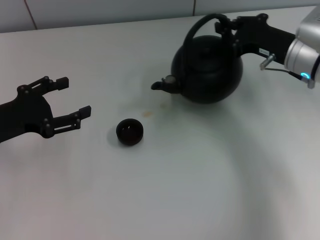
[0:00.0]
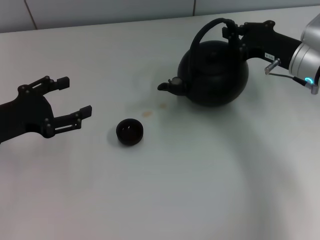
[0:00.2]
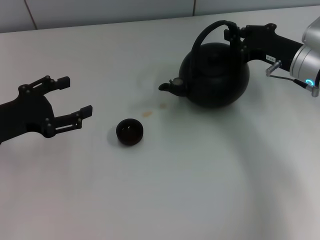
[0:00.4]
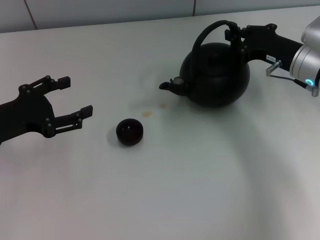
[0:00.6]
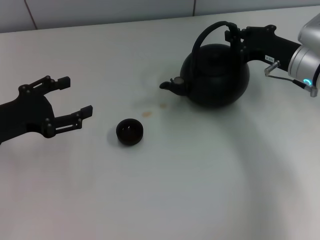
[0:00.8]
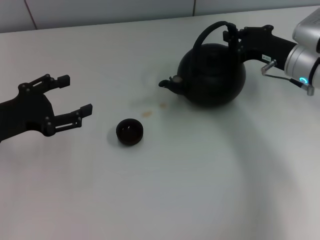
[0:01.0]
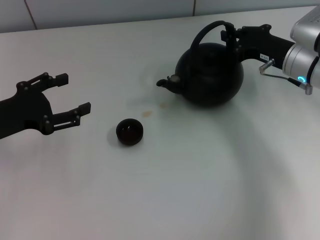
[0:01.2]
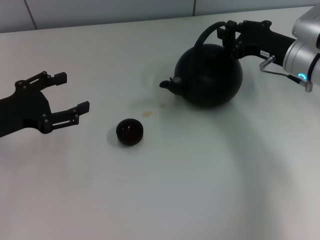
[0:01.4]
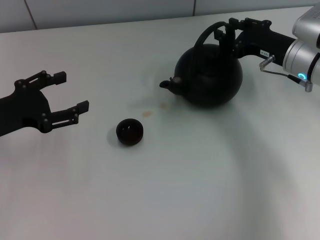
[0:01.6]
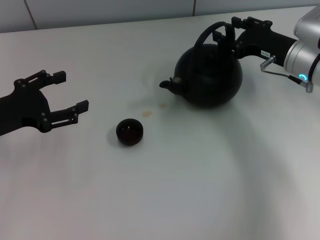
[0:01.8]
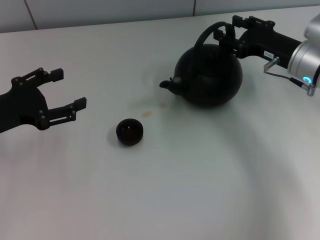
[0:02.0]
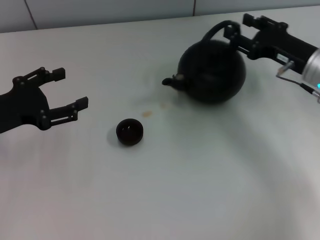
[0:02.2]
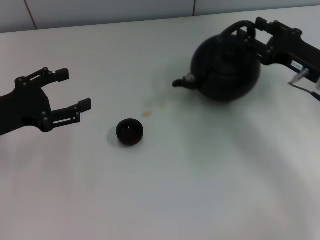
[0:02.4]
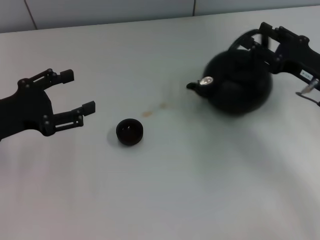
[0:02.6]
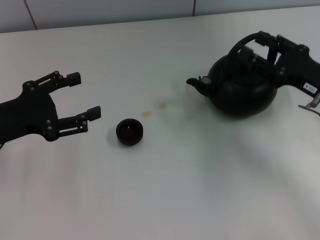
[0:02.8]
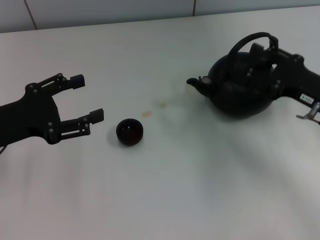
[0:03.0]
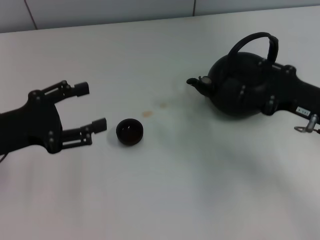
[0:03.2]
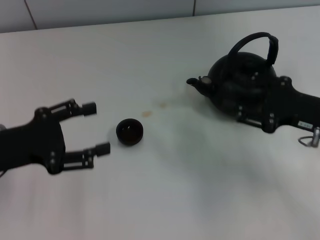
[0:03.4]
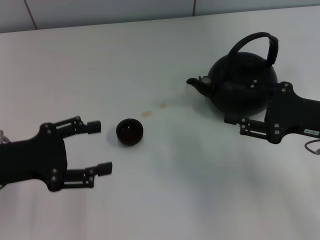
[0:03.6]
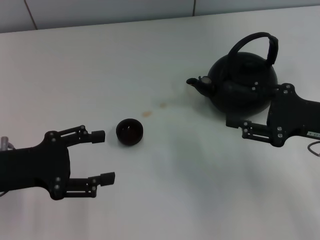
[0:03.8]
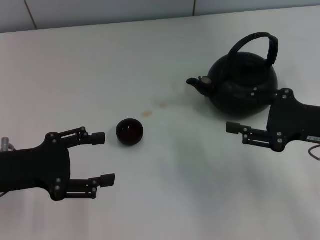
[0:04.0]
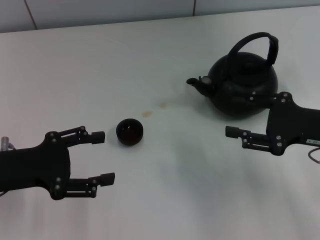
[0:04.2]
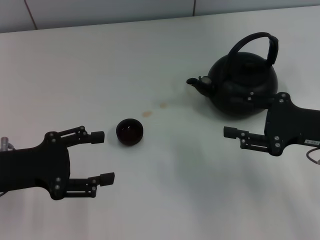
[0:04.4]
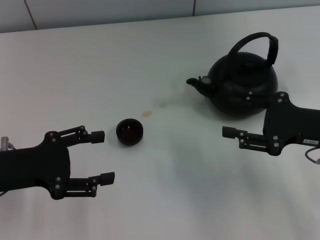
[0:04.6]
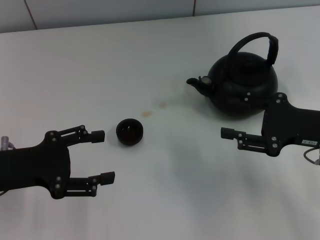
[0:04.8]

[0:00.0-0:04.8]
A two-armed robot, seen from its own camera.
Task of the whole recording: Grasp the handle of the teapot with one hand and pour tea into the teacup.
Step, 0.0 to 3.4 s: Put down the teapot with the right gripper.
0.0 to 1.6 s: The right gripper opens.
1.6 to 3.2 s: The right gripper travels backward by approximately 10 cm.
3.2 to 4.8 s: There are only small adjustments of the grippers.

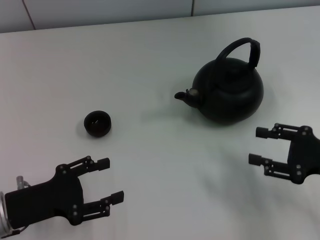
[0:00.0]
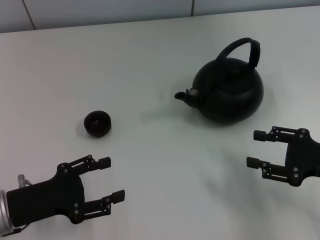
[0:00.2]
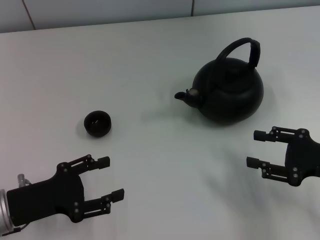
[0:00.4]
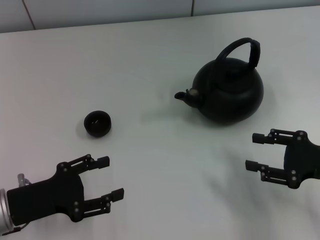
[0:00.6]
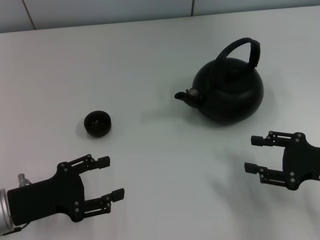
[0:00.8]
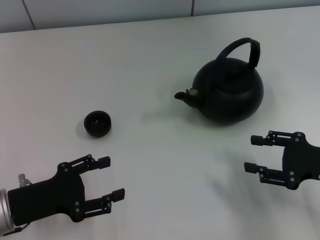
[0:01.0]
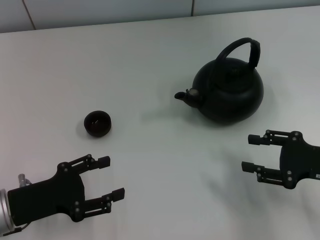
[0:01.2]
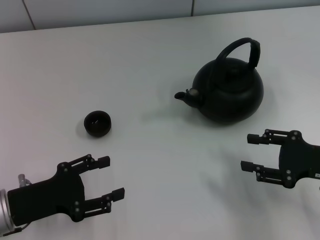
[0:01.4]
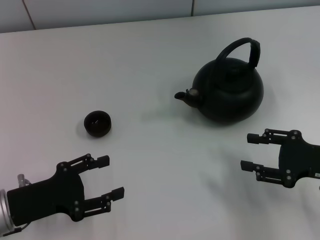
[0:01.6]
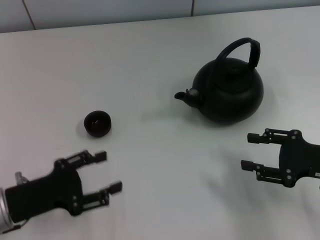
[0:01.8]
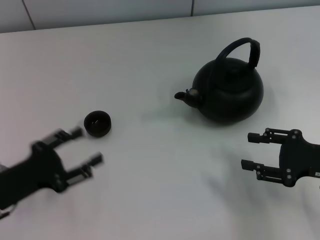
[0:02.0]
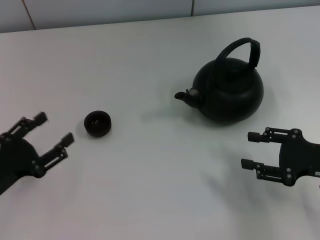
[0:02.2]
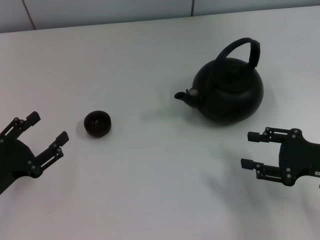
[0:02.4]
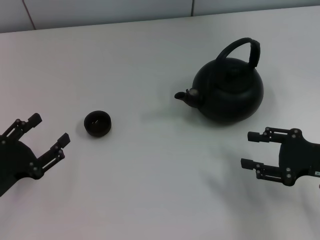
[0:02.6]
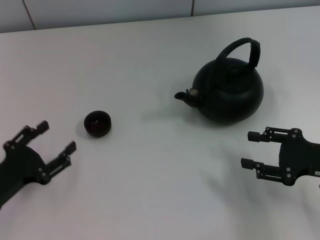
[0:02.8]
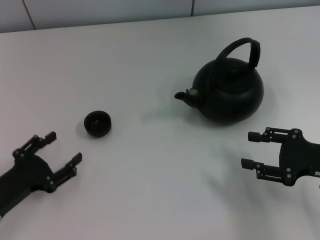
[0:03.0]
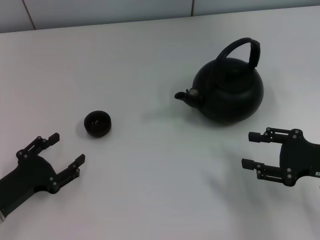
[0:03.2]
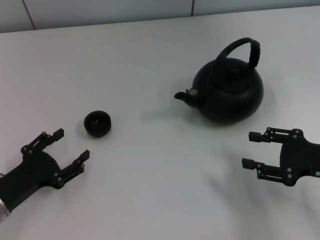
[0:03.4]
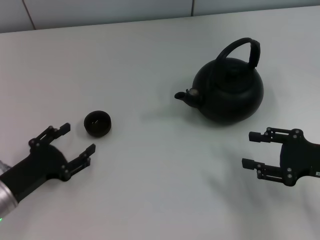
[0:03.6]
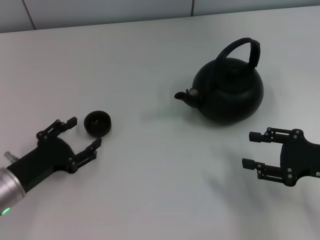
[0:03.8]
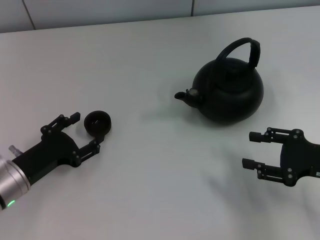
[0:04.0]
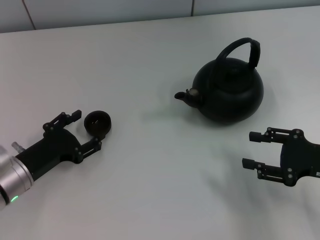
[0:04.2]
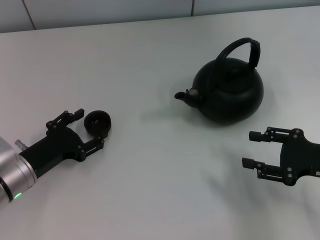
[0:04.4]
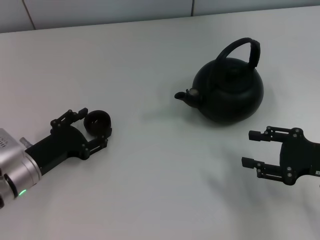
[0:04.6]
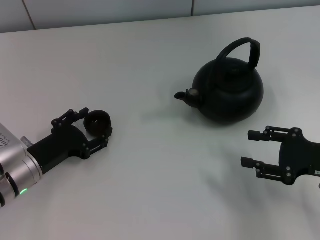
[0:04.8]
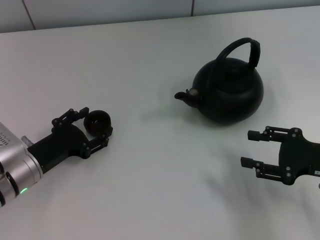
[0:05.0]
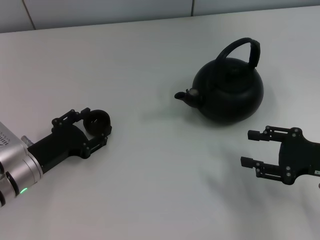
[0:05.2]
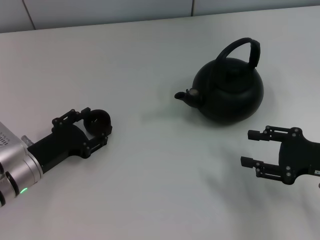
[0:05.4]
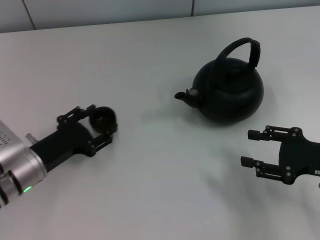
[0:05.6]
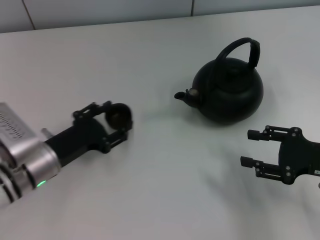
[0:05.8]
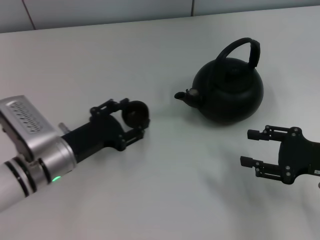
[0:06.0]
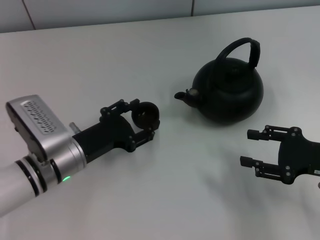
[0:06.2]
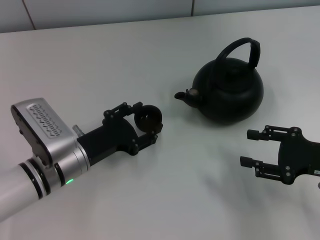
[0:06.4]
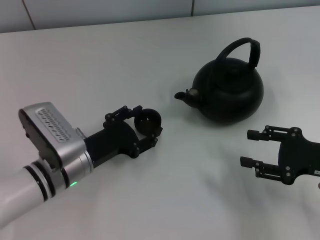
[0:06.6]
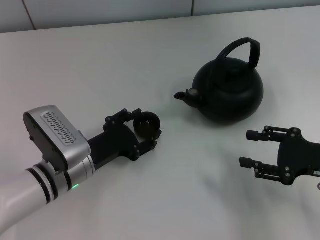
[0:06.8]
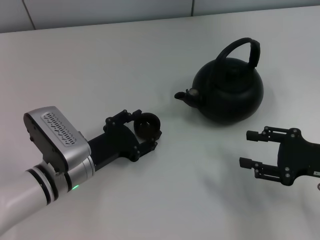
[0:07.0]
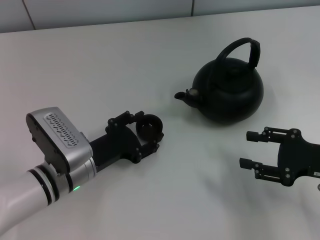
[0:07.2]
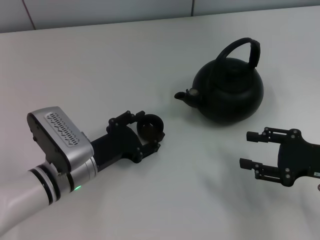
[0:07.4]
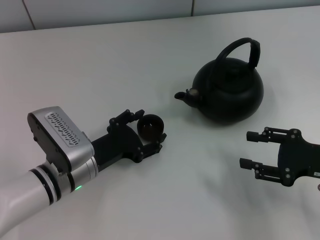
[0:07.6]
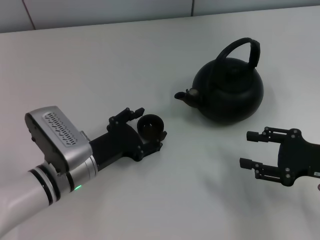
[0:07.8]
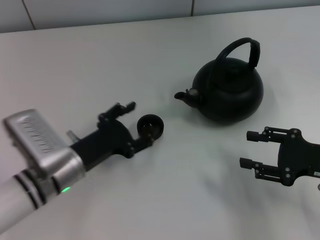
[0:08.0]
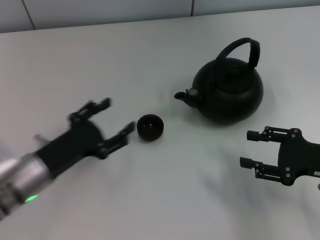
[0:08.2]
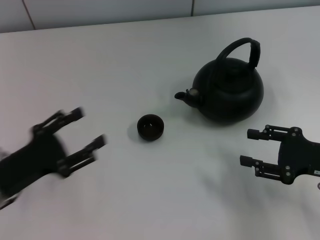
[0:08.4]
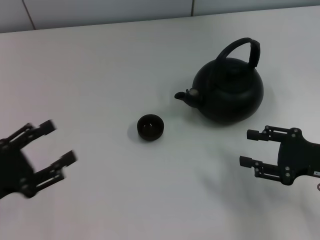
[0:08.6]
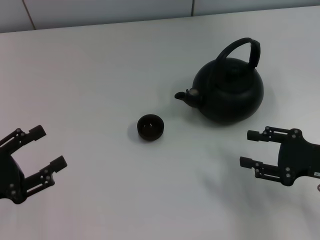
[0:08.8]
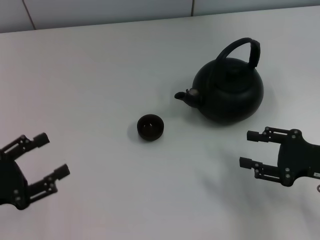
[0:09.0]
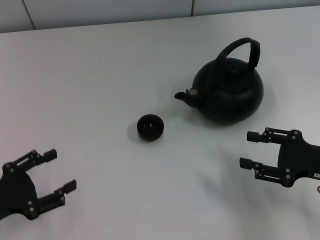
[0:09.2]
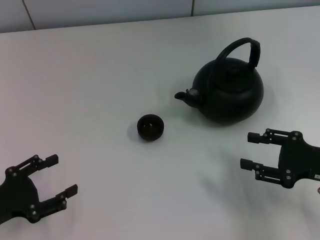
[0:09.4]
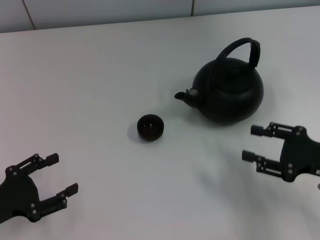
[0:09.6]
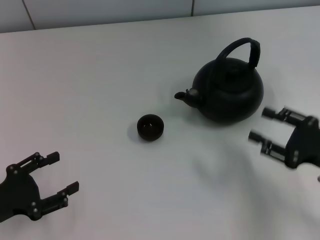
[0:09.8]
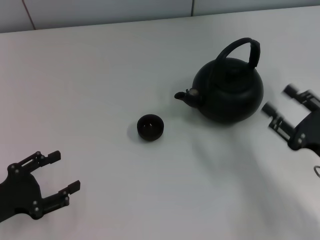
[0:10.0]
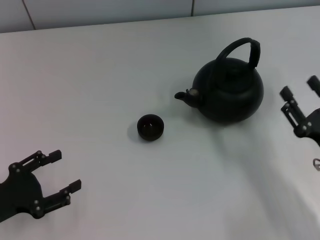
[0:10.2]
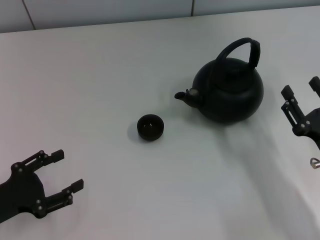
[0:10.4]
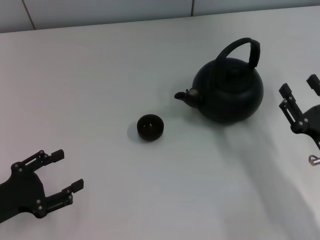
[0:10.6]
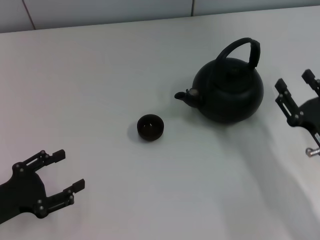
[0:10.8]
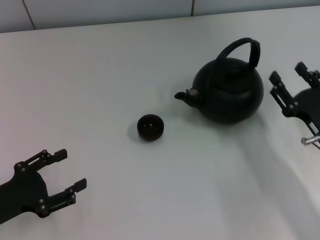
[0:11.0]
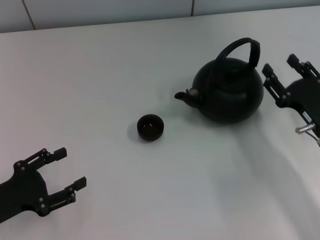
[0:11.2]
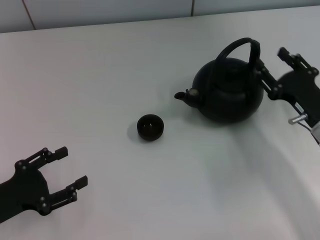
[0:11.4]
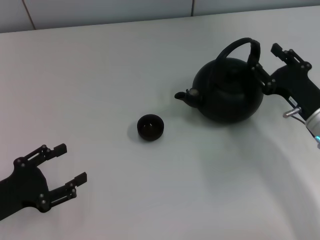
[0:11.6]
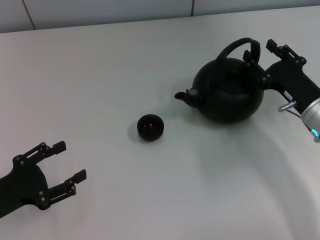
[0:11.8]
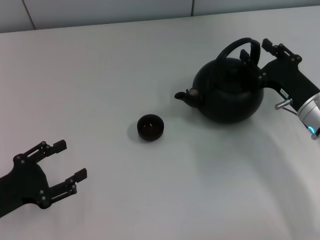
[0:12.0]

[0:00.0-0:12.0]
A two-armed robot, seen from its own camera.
Task of the whole recording: Grasp the handle of the teapot with one hand and pour tea into the teacup.
Step, 0.0 to 5.6 s: Pick up the teacup with the left gripper.
Step, 5.8 to 8.0 s: Place the teacup in the center of view with the left gripper.
0.0 to 1.6 s: The two grippers keep their place.
3.0 to 4.4 s: The left gripper shifts approximately 5 cm forward.
4.4 to 6.0 s: The left gripper goes approximately 5 cm to the right.
6.0 to 7.6 s: The grippers stay close to where they were, moving slightly.
7.6 to 9.0 s: The left gripper is displaced to the left and backward by roughly 20 cm.
9.0 to 10.4 s: The right gripper changes place by roughly 5 cm.
10.4 to 12.0 s: The right gripper moves forward, approximately 10 cm.

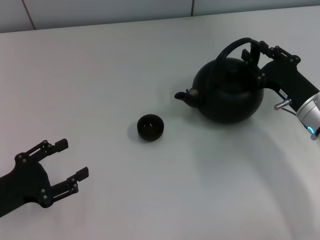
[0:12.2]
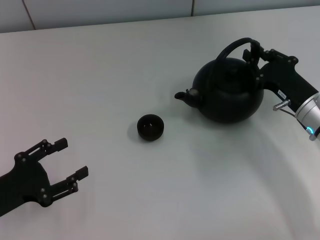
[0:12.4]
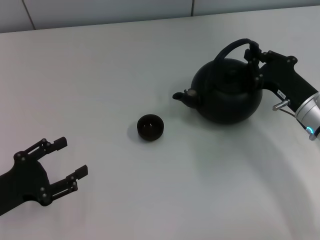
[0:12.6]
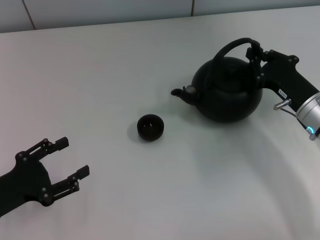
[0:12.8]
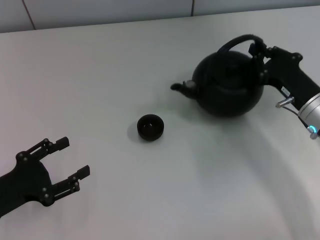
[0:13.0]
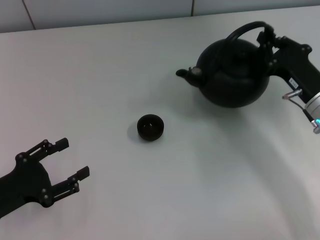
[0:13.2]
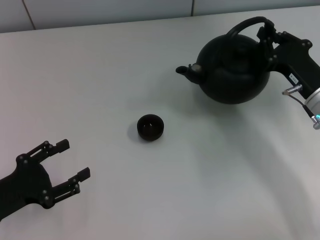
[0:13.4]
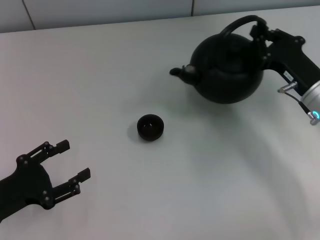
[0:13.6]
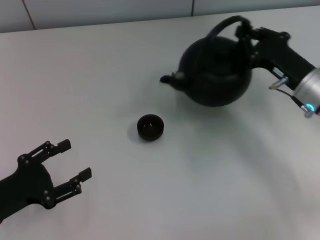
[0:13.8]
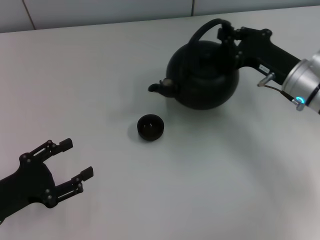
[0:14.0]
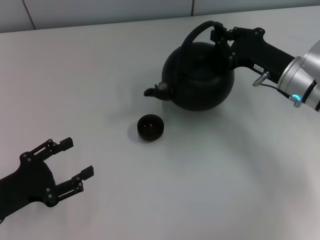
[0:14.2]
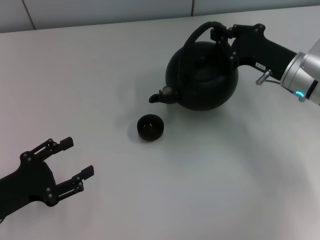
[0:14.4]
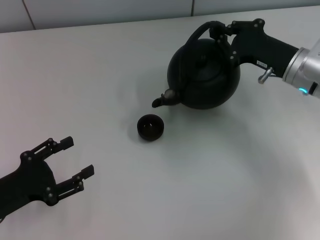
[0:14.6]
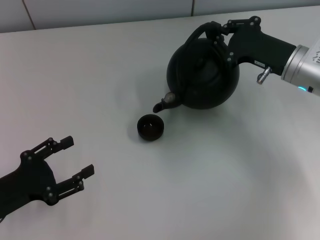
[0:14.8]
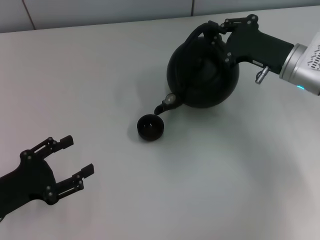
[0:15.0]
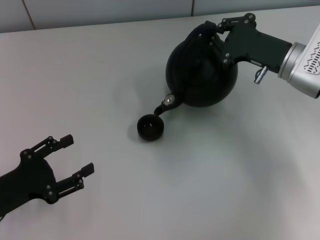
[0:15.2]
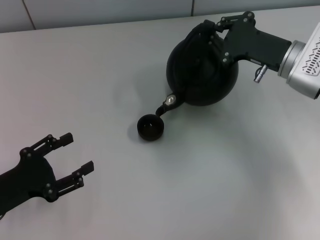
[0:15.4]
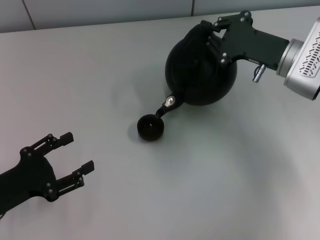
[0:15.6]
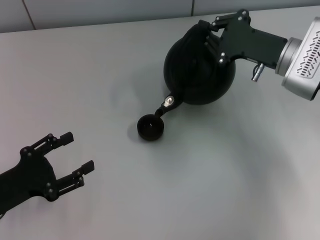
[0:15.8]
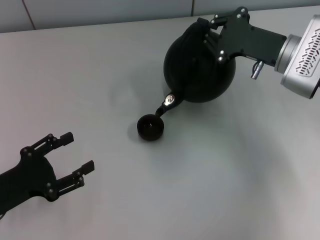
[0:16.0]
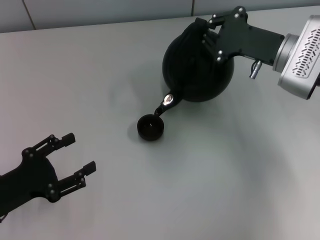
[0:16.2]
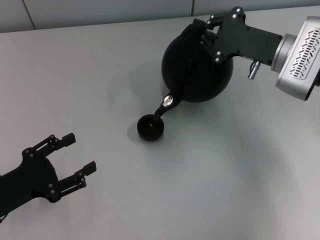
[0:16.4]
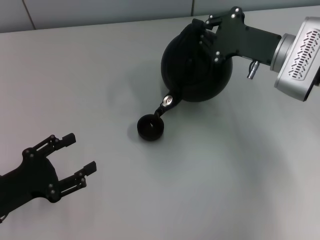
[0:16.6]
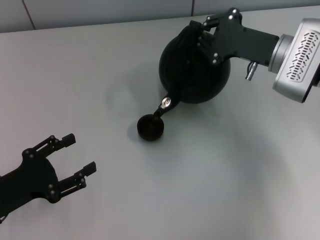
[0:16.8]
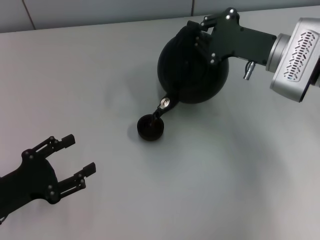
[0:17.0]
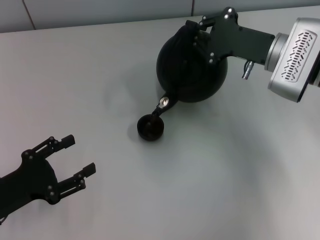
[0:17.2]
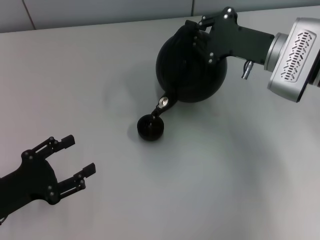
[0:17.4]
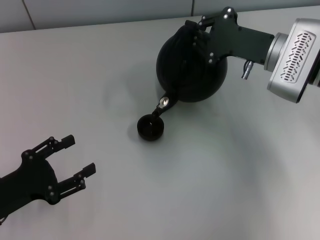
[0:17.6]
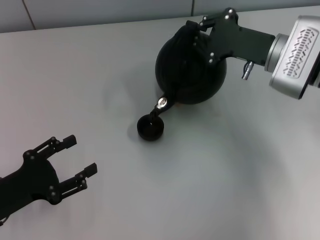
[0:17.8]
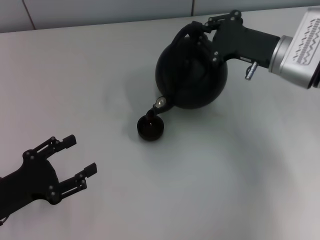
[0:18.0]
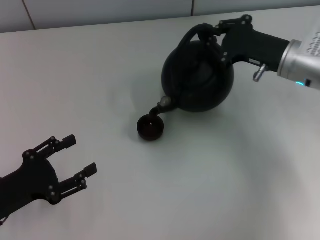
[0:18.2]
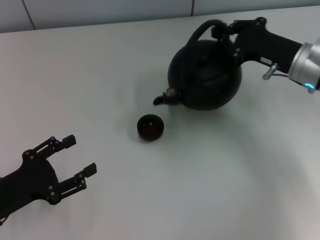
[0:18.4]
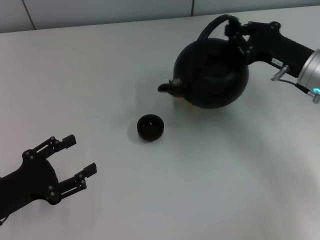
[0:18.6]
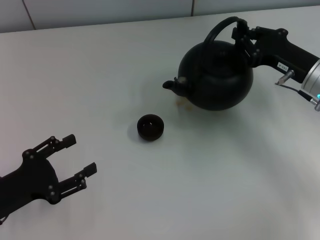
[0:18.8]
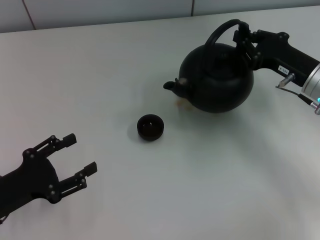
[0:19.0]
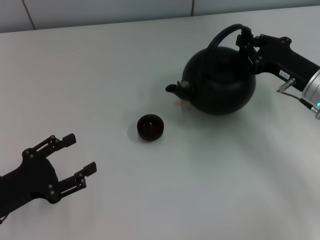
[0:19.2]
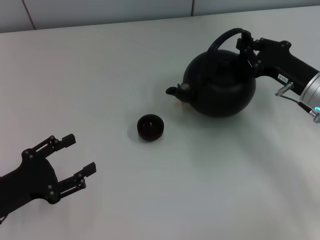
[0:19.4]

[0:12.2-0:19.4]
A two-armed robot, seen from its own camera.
Task of the whole recording: Grasp the handle of the teapot with one hand and pour tea into the teacup.
12.2 to 13.6 s: The right gripper closes.
13.6 to 15.0 s: The right gripper moves about 5 cm.
15.0 to 18.0 s: The grippers stay close to where they were, moving slightly.
18.0 to 19.4 s: The right gripper shifts by roughly 10 cm.
